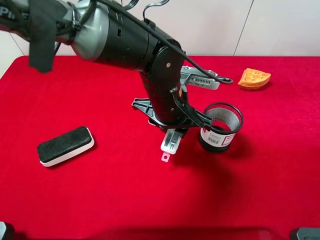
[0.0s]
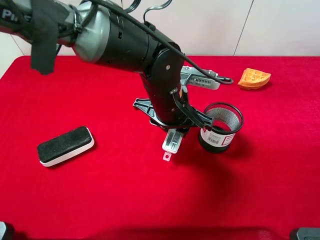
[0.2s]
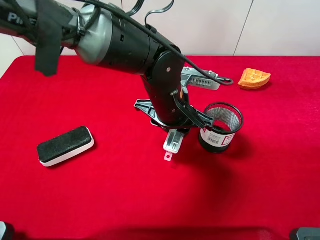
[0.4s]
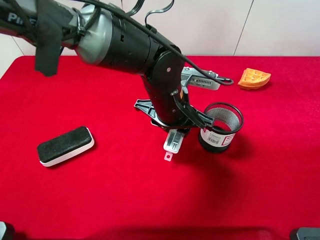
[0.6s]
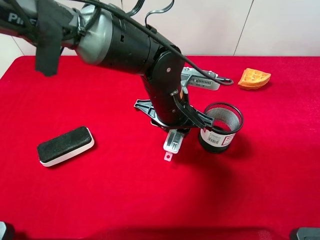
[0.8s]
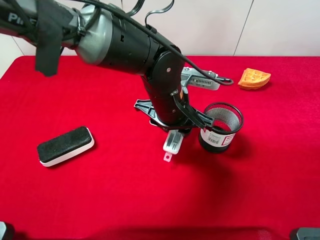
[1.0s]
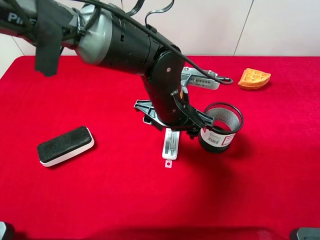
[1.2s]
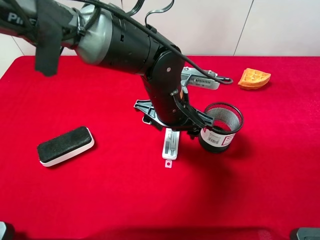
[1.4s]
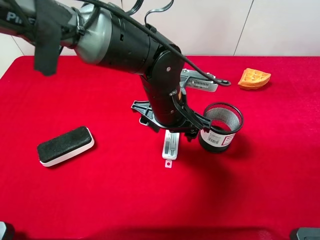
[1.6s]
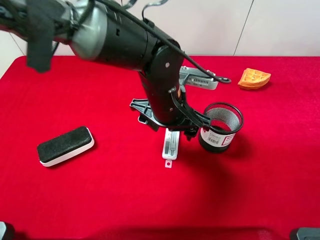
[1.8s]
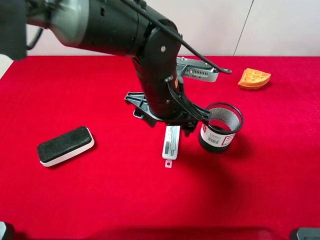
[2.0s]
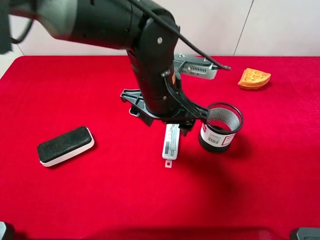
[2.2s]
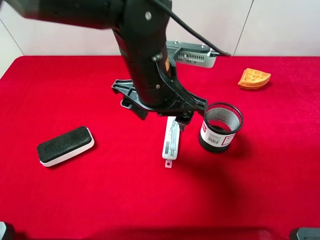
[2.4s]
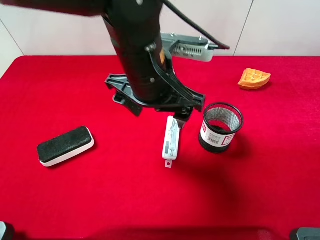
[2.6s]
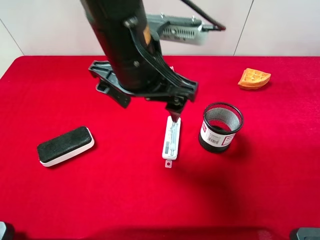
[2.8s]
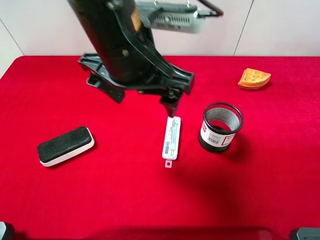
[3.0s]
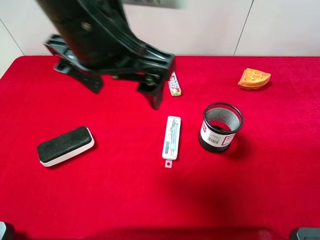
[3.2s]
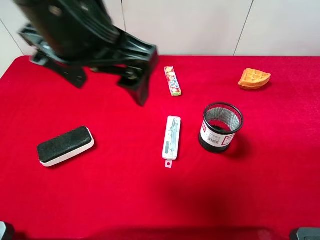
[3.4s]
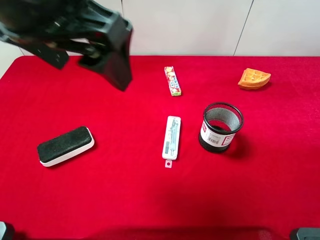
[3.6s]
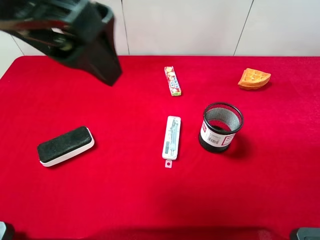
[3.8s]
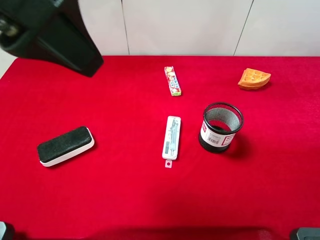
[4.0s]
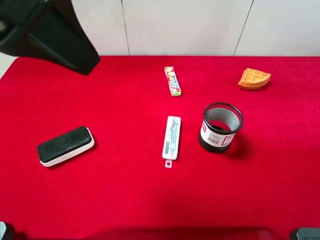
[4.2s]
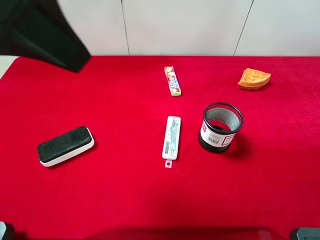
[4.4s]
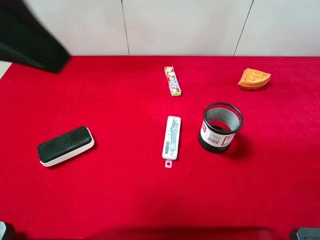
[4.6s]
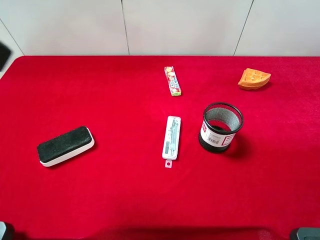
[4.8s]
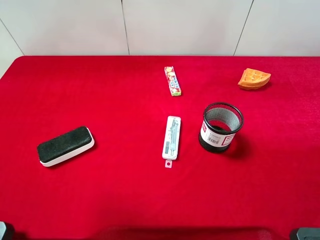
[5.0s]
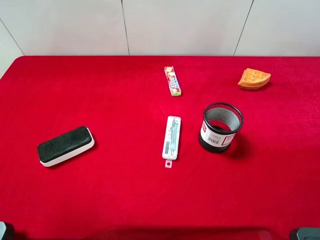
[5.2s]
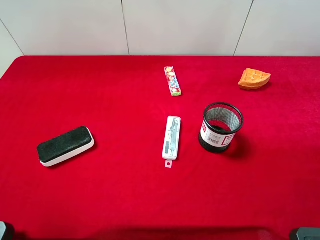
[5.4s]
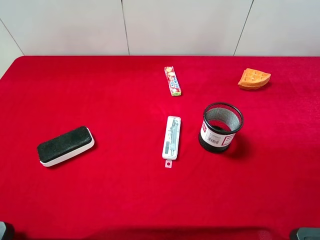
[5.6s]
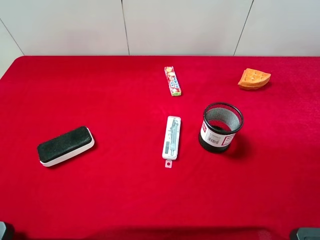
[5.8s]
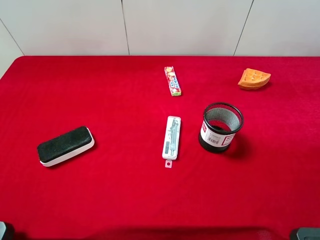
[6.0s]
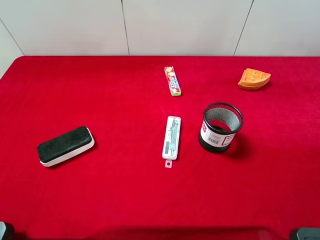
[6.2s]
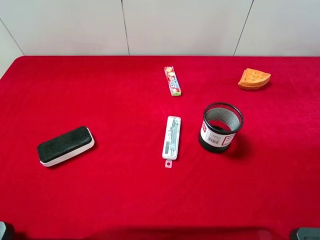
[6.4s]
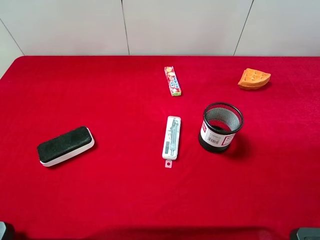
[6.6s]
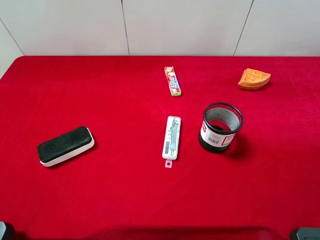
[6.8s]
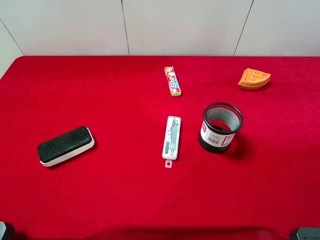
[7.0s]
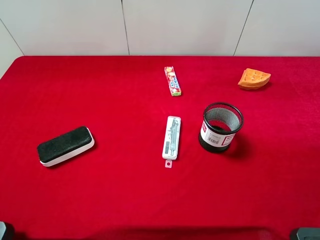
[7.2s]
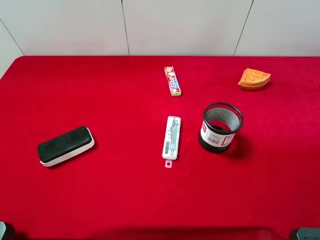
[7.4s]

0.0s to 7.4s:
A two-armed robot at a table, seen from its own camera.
Task of the whole recording: the gripper move the object.
Step, 0.0s to 2.6s: Place the compasses on the table with the left gripper.
0.0s to 1.4s: The left gripper opens up.
1.4s to 3.0s: The left gripper shifts some 15 cm upward and to the left.
3.0s to 4.4s: The left gripper moves upward, to the left and backward, approximately 20 cm.
4.4s to 6.0s: The left gripper travels to the left, downward and backward by about 25 cm.

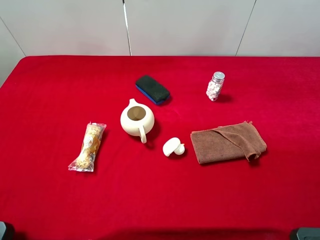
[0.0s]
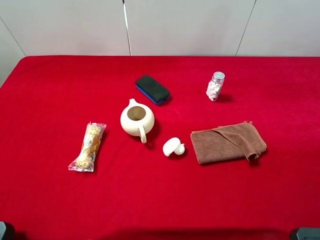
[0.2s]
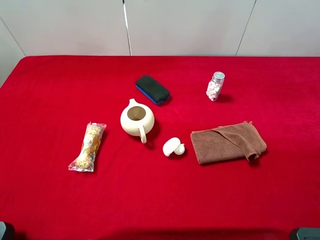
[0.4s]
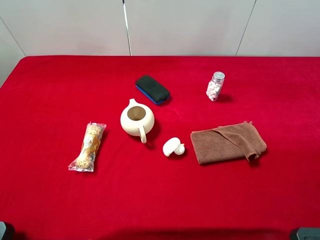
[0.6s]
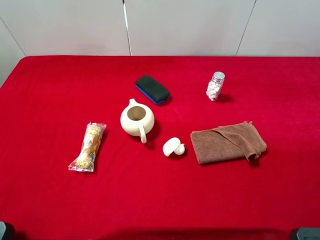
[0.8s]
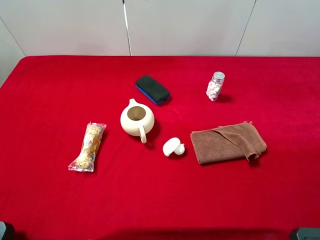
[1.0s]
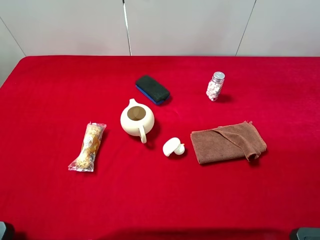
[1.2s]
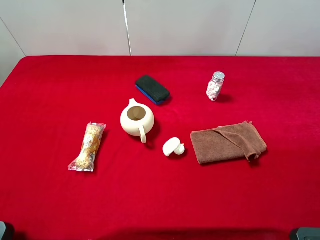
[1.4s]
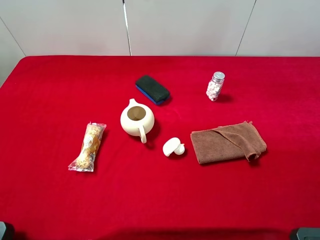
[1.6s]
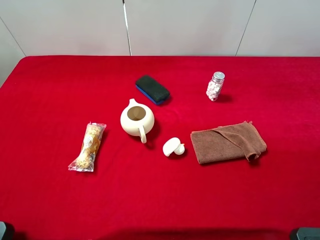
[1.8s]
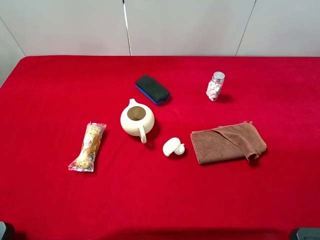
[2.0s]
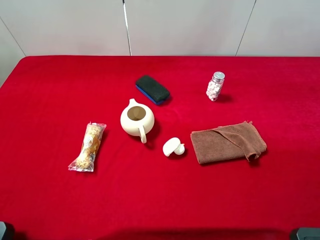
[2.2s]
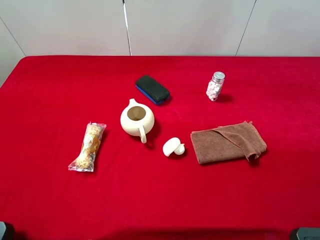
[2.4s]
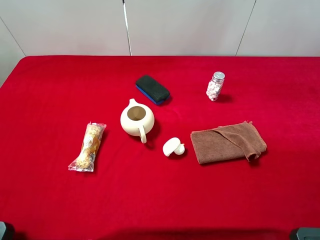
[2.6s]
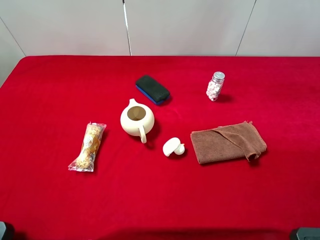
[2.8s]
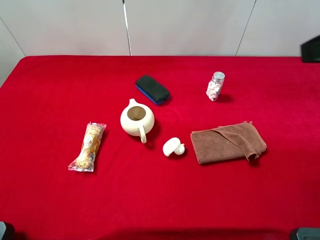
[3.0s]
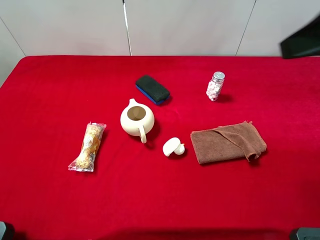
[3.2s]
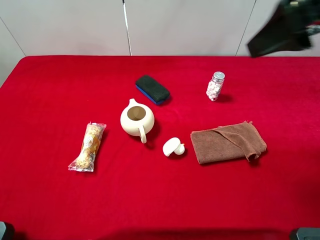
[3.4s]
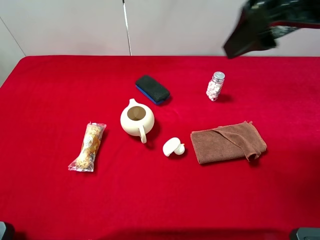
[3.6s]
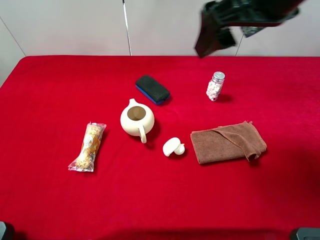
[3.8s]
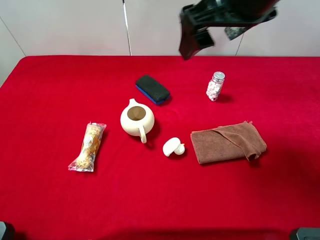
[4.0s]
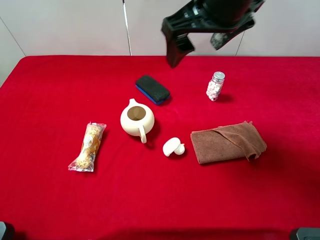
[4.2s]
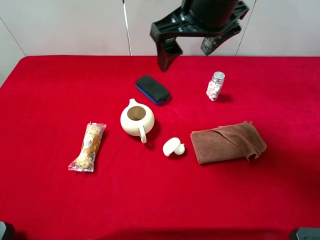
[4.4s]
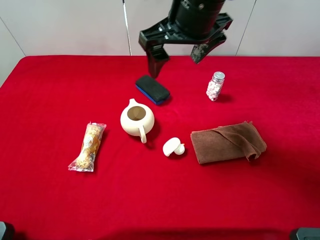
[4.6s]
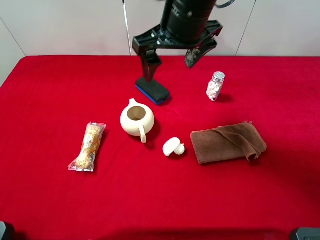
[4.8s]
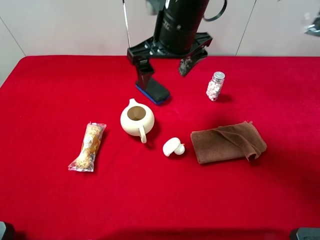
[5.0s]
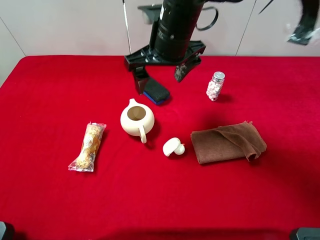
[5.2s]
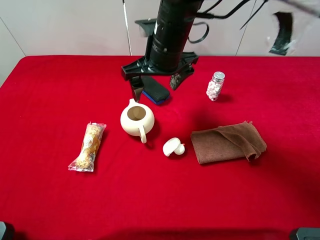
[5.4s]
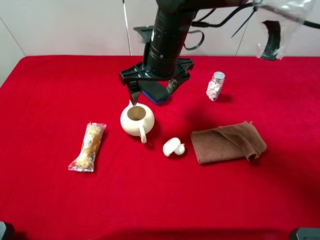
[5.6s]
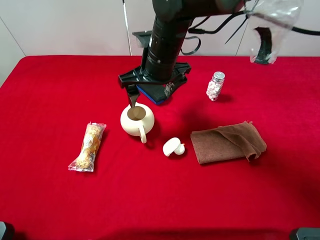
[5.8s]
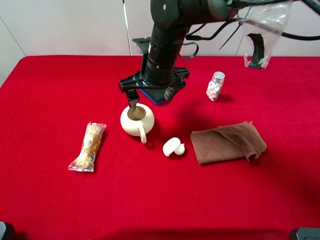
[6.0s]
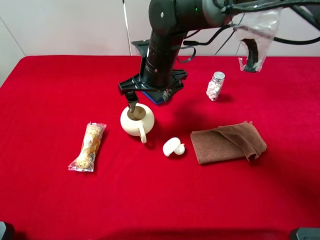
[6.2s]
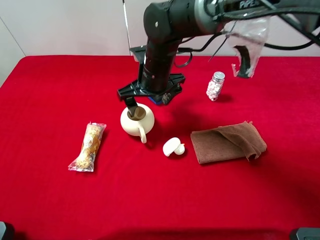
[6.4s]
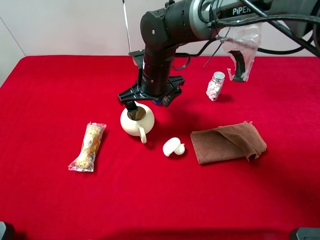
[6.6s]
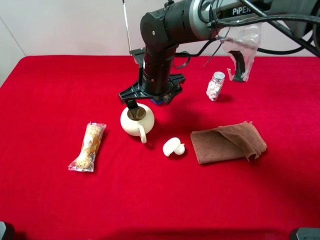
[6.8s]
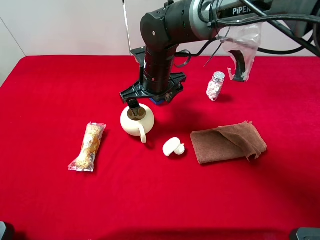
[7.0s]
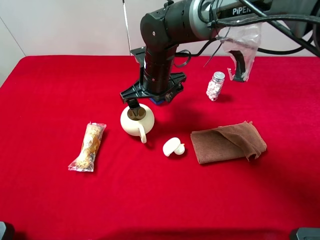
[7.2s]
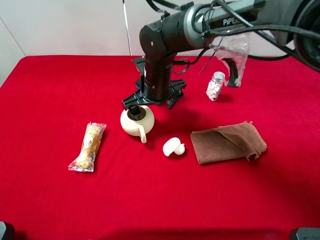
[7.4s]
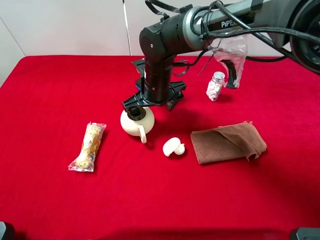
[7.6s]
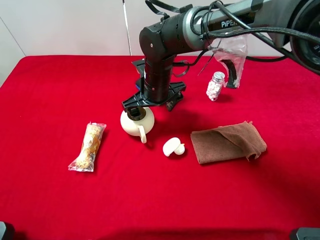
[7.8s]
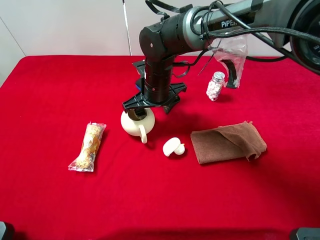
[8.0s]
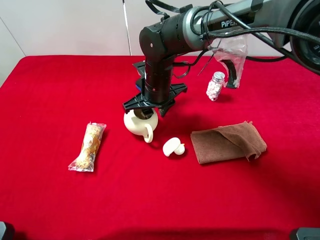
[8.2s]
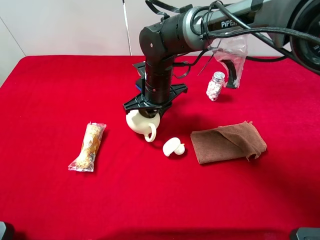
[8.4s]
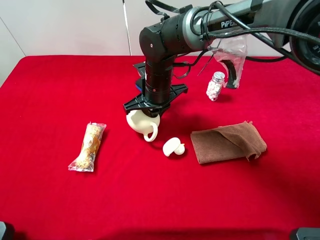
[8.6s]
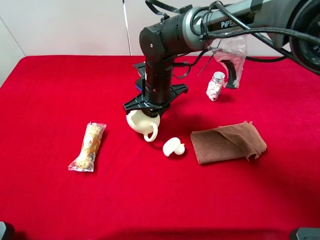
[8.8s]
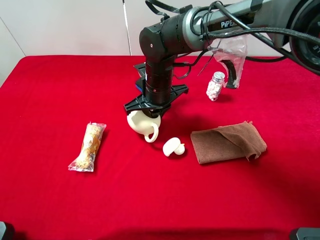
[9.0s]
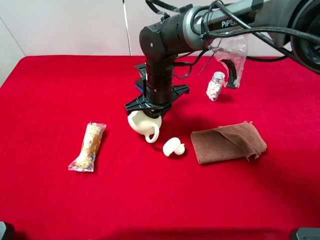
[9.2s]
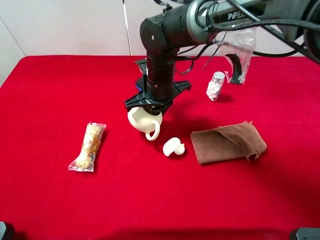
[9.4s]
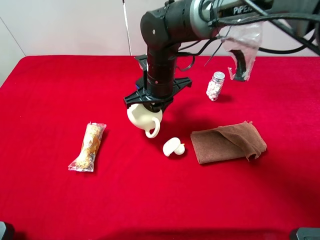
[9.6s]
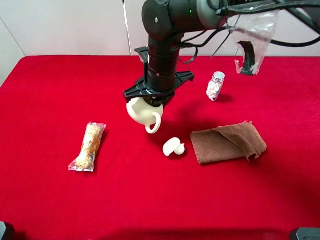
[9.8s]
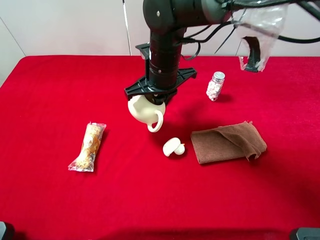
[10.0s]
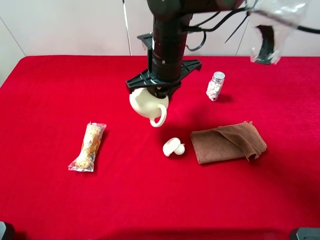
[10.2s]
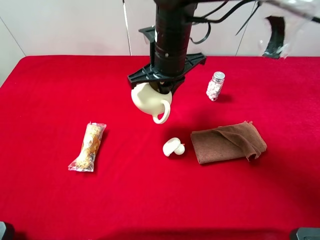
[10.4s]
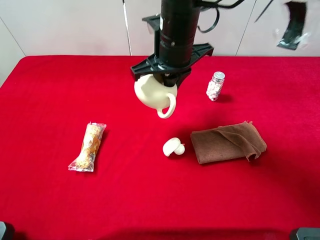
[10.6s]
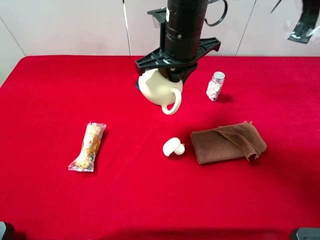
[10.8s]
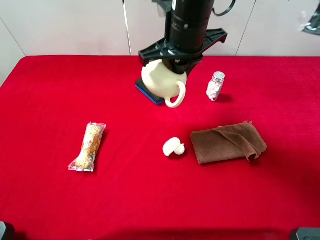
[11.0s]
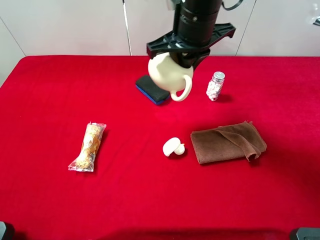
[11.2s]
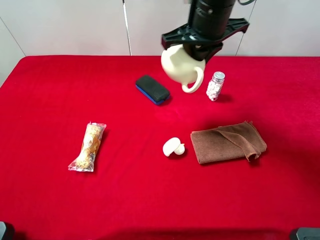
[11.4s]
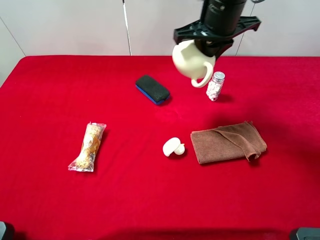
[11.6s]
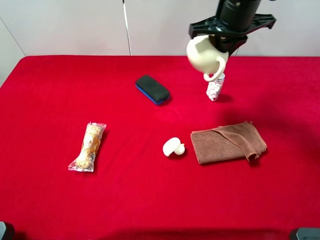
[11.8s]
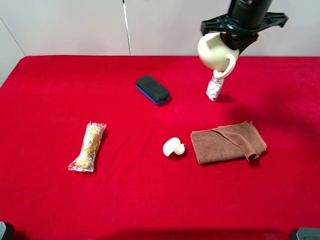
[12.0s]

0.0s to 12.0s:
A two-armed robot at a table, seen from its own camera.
Task of the whole recording: the gripper move the object.
Step, 0.0s to 8.6s: Grasp the teapot with the right gripper.
0.0s to 1.6s: Neither gripper changes place.
3.0s to 4.4s: The right gripper travels to the left and forward by roughly 25 cm.
4.4s to 6.0s: The right gripper is displaced downward and to the left by roughly 15 cm.
6.0s to 7.6s: The right gripper moves downward, approximately 5 cm.
7.6s to 9.0s: The right gripper closes its fingers.
9.0s to 10.4s: The right gripper moves upward, about 10 cm.
10.4s to 12.0s: The right gripper travels to the right, forward and upward by about 15 cm.

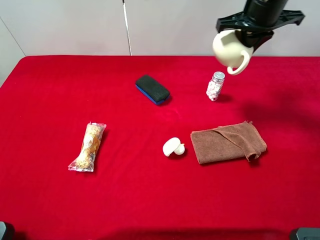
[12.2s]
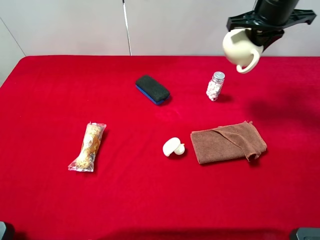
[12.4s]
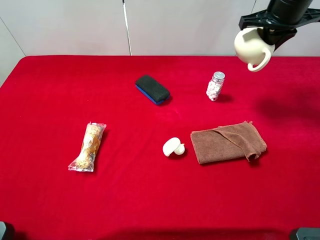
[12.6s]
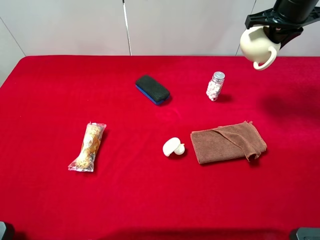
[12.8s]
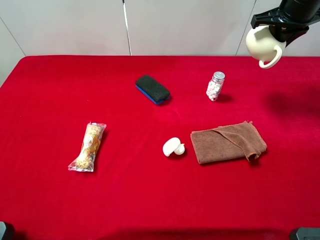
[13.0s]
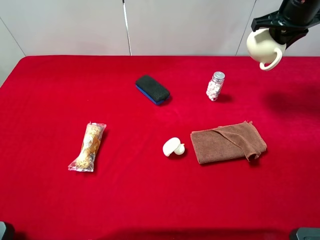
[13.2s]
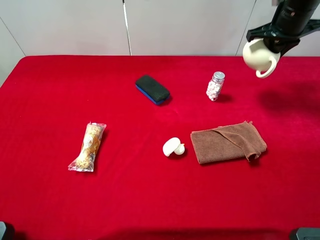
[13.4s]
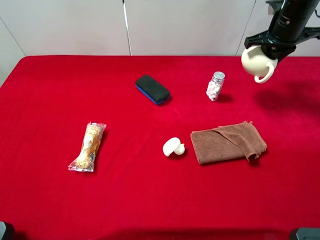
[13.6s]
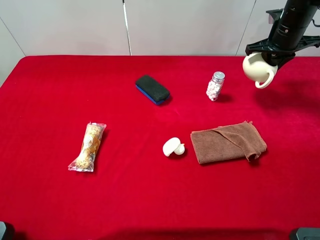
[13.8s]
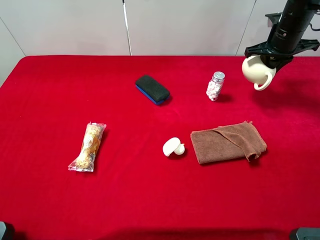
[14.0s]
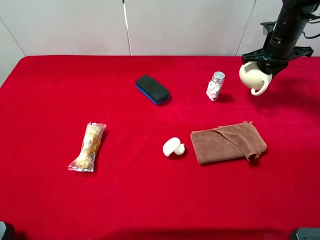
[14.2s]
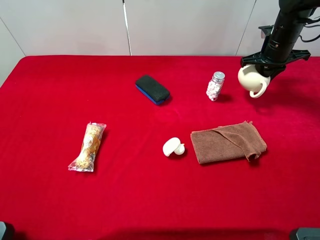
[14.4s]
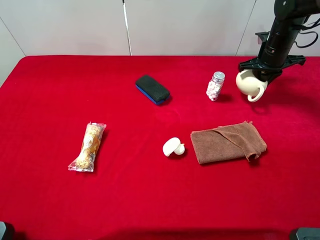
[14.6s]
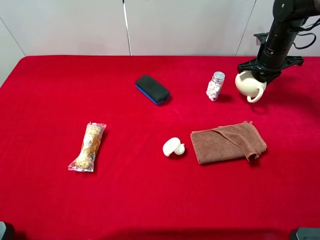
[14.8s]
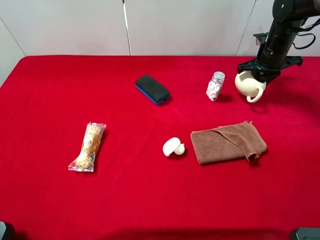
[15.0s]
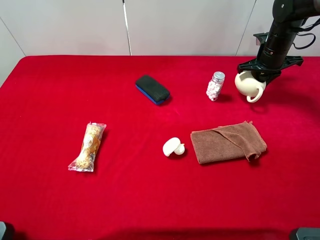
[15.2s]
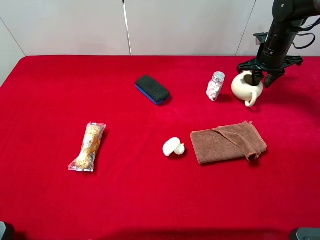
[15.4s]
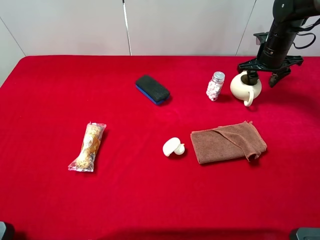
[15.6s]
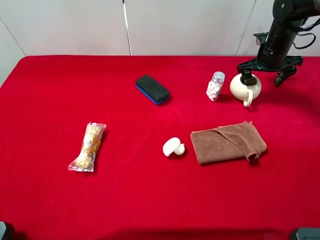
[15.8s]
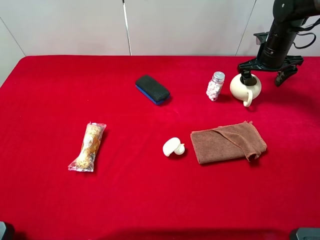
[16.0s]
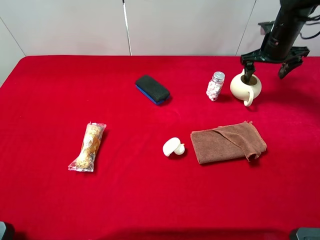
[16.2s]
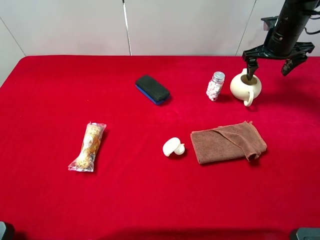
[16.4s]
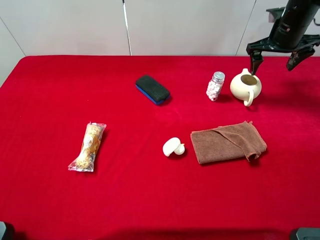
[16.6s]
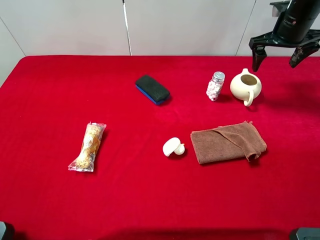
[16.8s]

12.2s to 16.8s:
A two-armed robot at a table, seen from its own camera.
Task of the whole recording: the gripper move the object.
12.2s to 13.8s: The right gripper shifts approximately 10 cm to the right and downward.
13.8s to 15.2s: The right gripper shifts approximately 5 cm downward.
15.2s to 16.8s: The right gripper moves upward, roughly 10 cm, and opens up.
